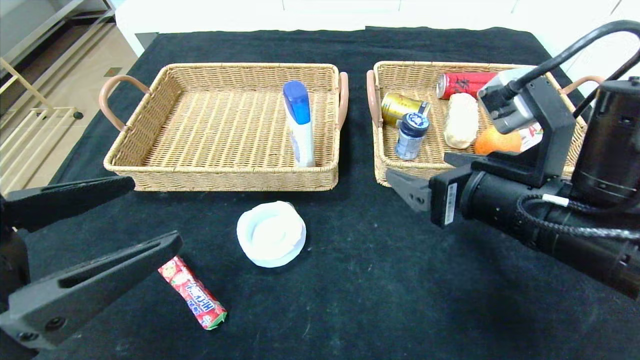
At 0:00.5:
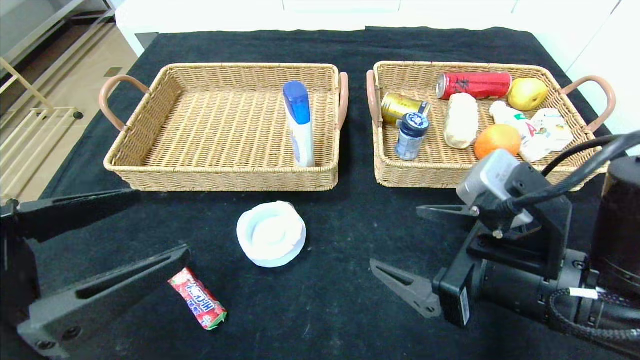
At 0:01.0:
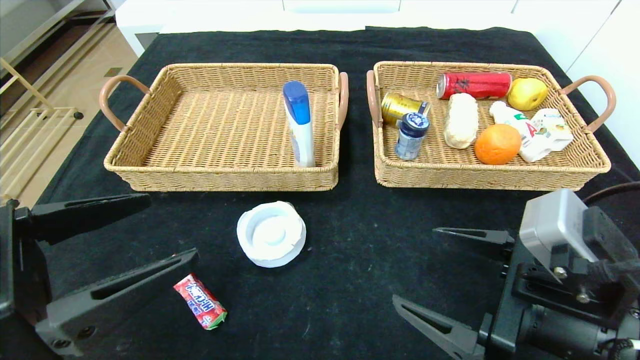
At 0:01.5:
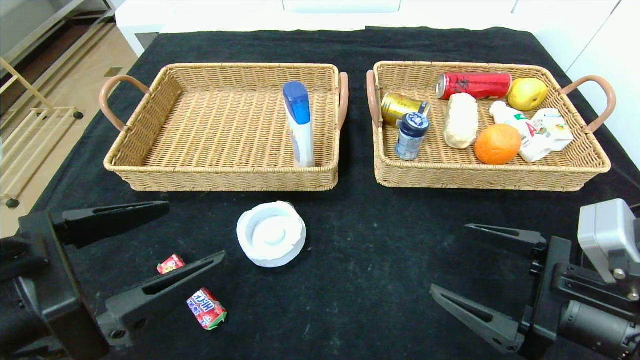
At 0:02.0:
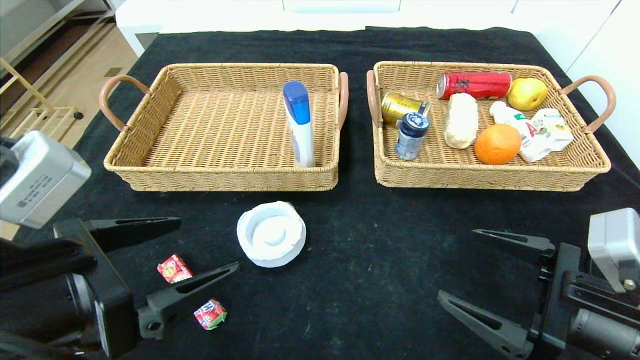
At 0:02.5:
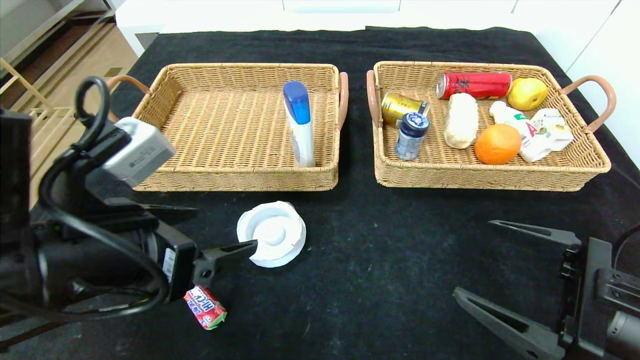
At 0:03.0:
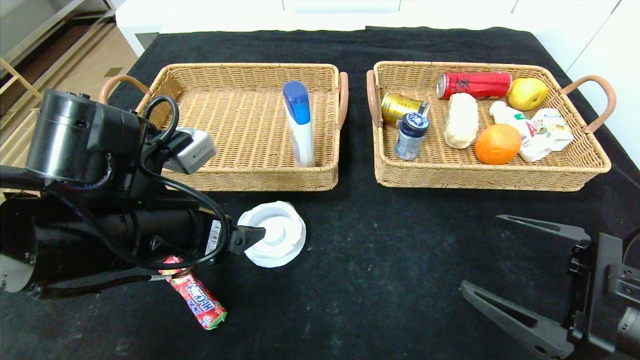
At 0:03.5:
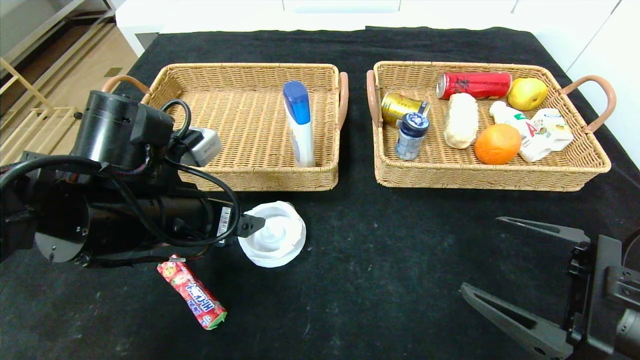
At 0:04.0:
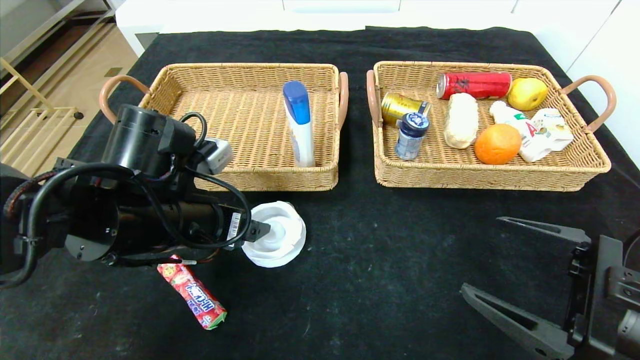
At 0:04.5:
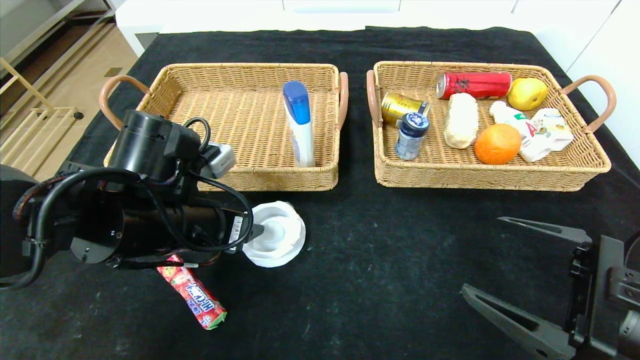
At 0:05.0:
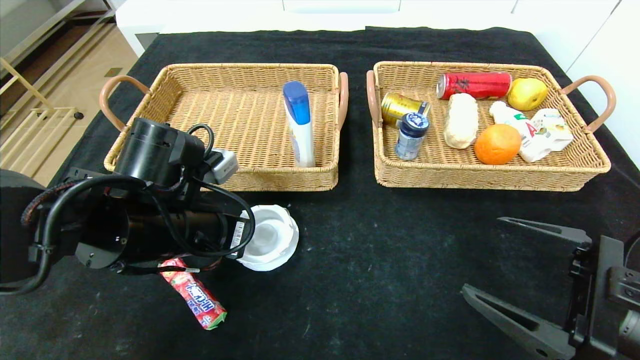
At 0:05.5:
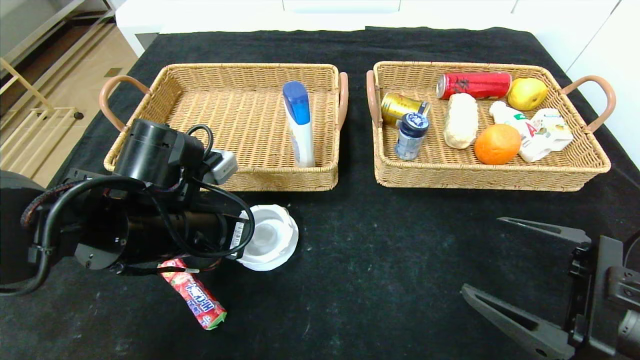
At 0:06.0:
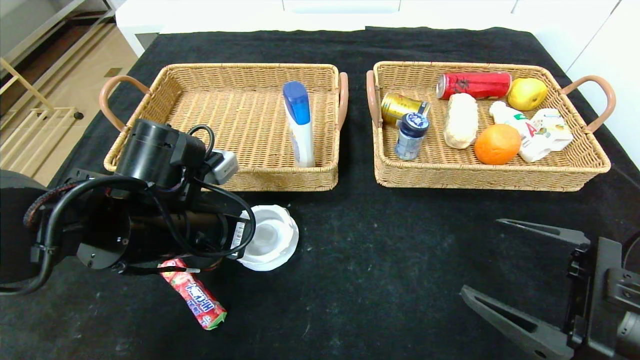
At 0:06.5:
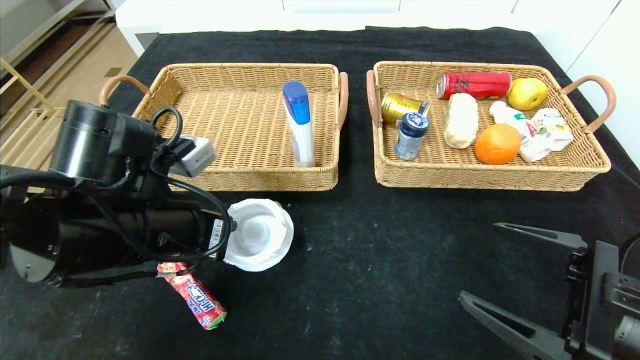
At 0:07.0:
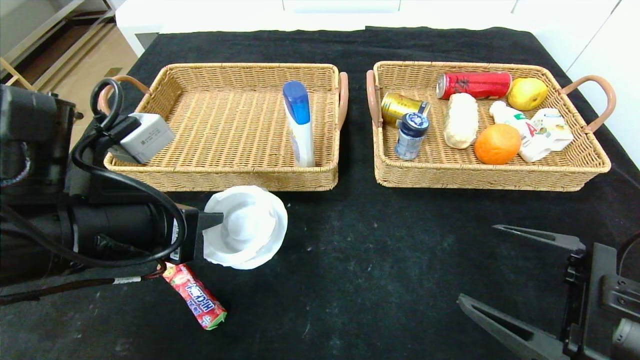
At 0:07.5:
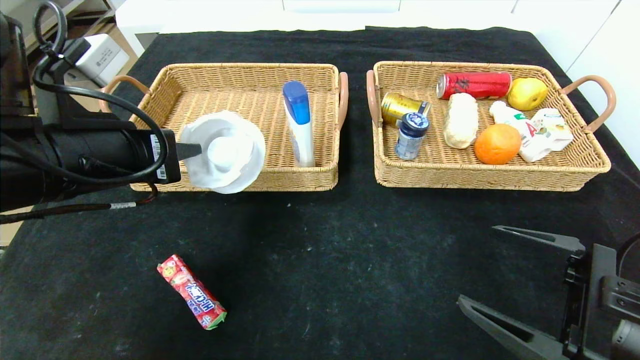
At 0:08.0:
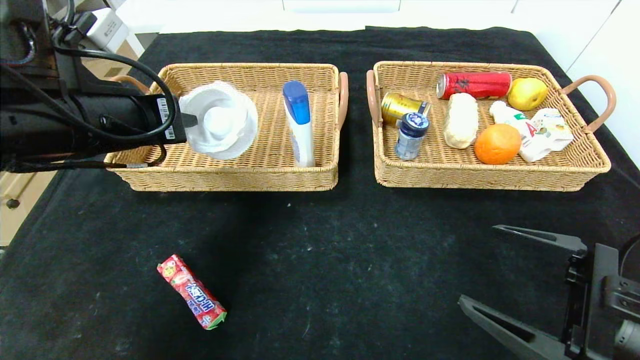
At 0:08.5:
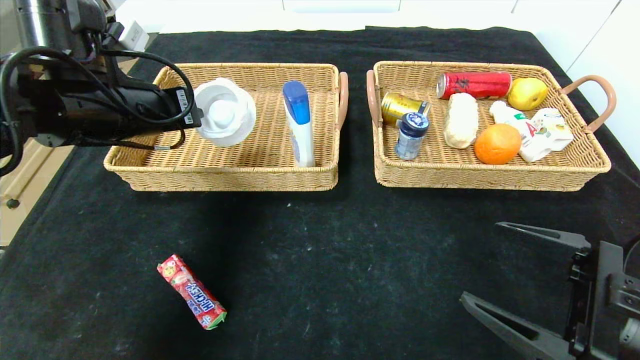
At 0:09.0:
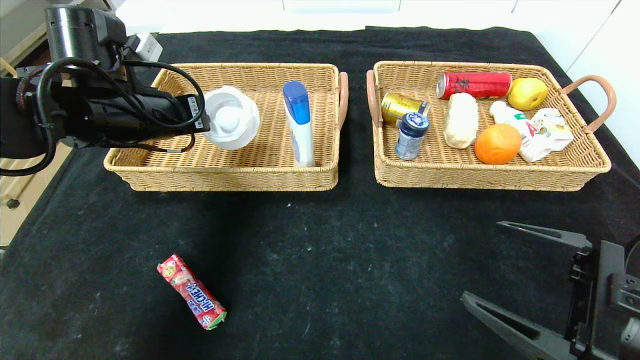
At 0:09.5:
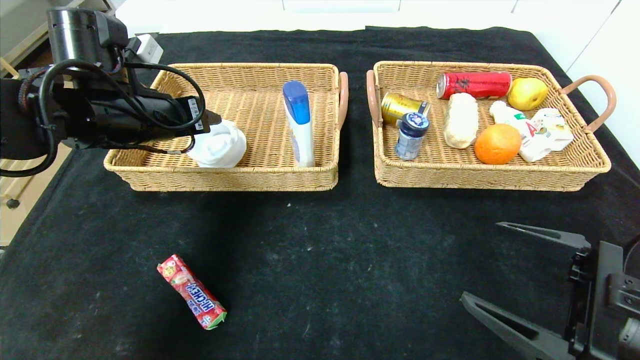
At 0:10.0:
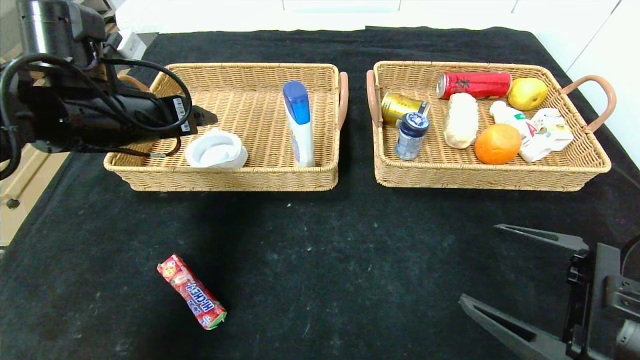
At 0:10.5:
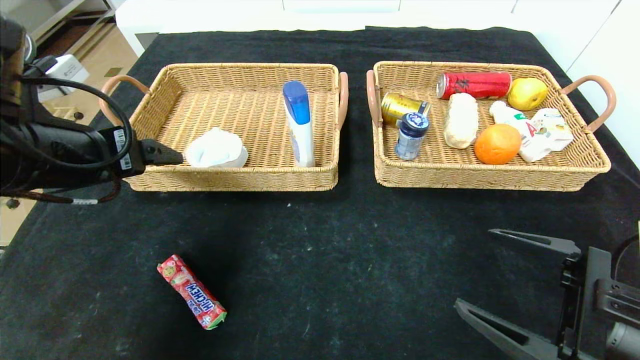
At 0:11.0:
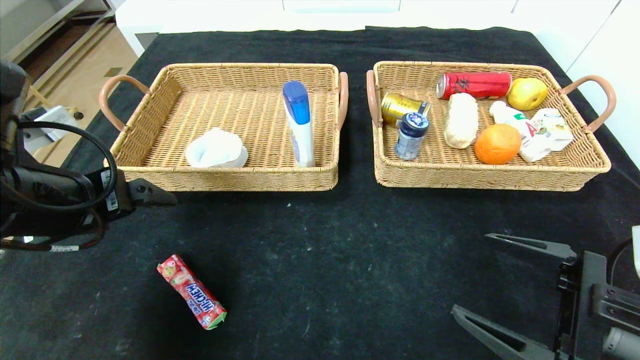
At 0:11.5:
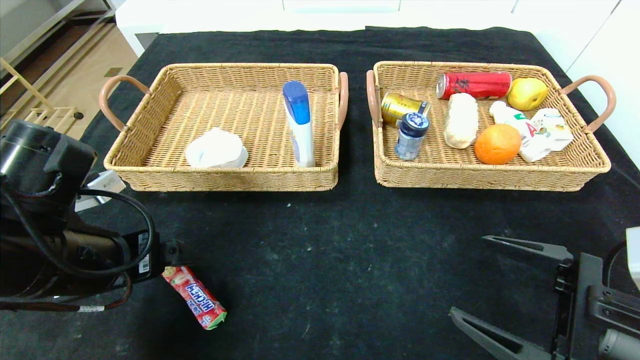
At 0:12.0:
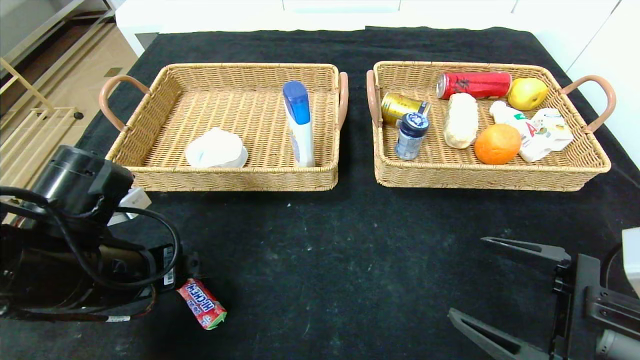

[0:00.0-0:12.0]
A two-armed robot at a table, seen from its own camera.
Step, 0:00.0 to 0:09.5: Grasp the tape and put it in the left basket.
0:00.0 to 0:02.0: The right gripper is displaced downward, to the right and backward by some 15 cm.
0:02.0 to 0:04.0: The left gripper moves forward, some 15 cm.
0:04.0 to 0:06.0: The left gripper closes up.
0:06.0 to 0:08.0: The left gripper heads upward and to the left, covering some 10 cm.
0:08.0 to 0:10.0: The left gripper travels forward by some 5 cm, and opens up.
0:10.0 to 0:12.0: The left gripper heads backward and downward, covering about 15 cm.

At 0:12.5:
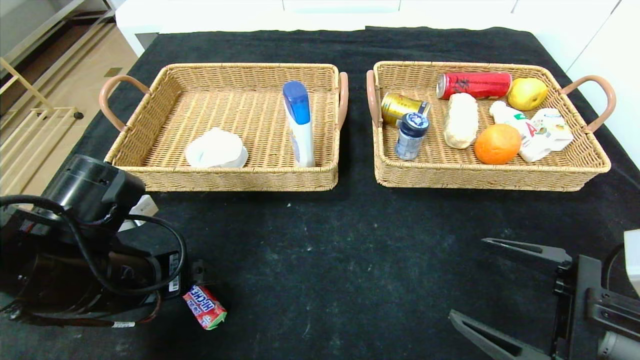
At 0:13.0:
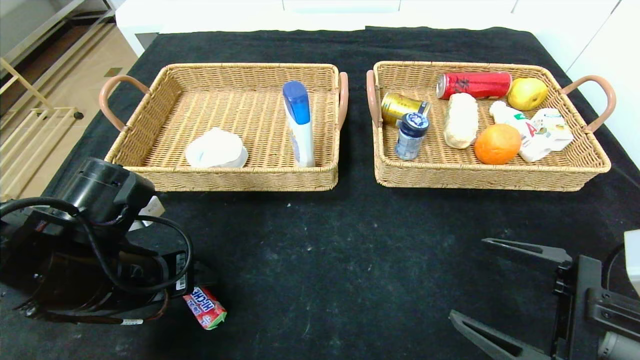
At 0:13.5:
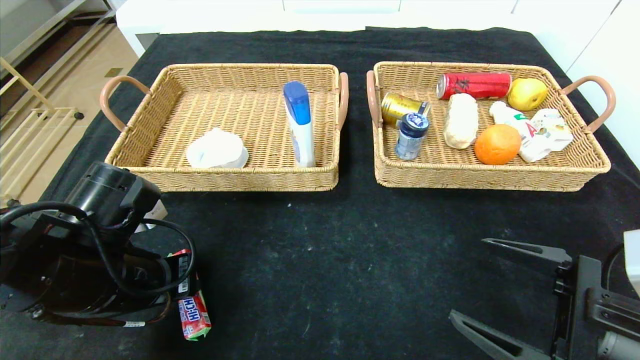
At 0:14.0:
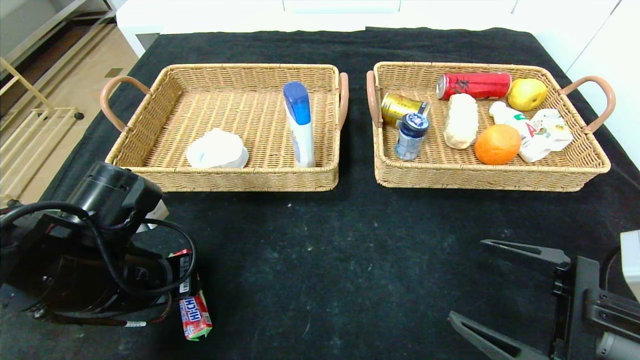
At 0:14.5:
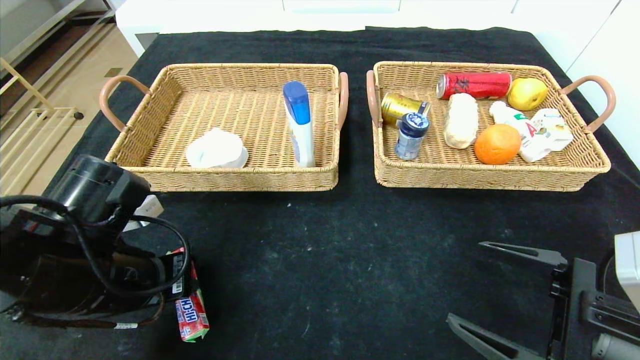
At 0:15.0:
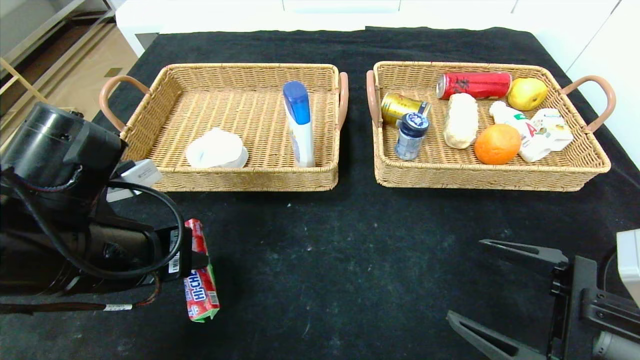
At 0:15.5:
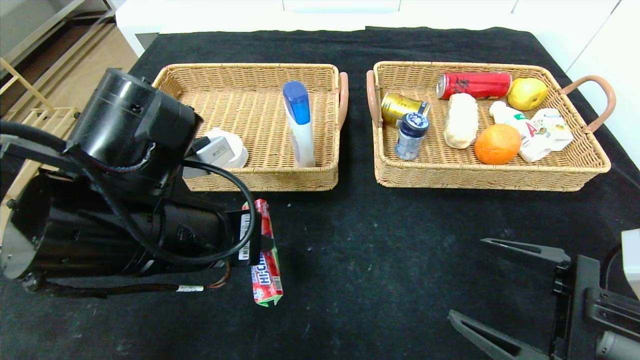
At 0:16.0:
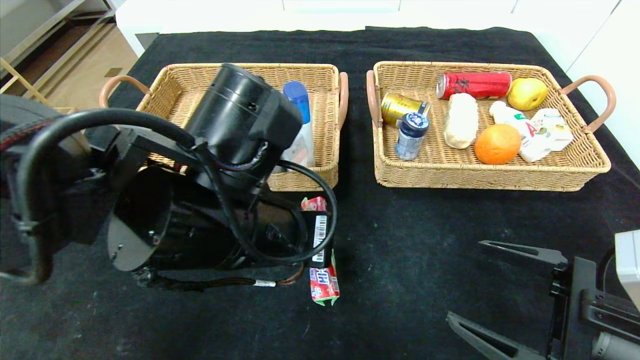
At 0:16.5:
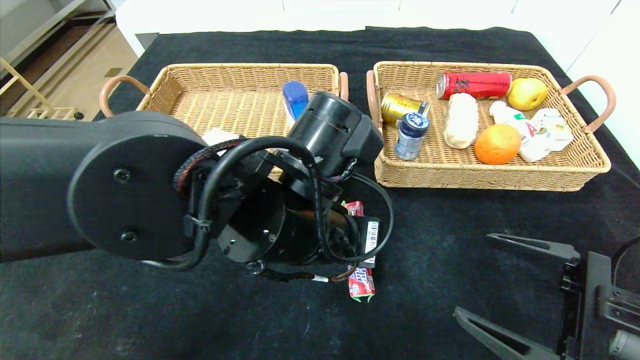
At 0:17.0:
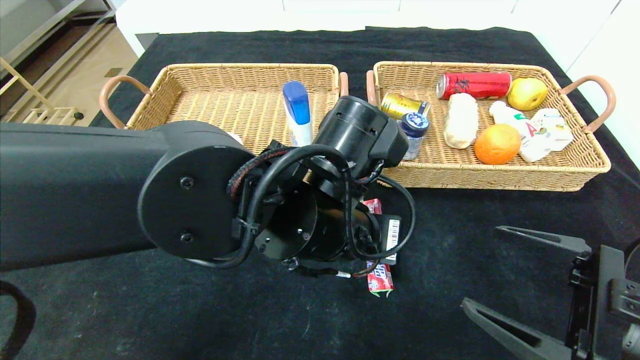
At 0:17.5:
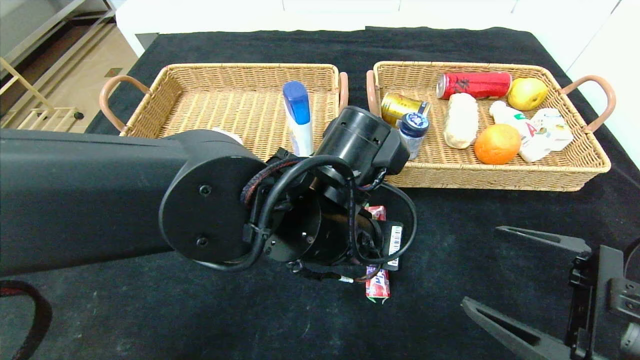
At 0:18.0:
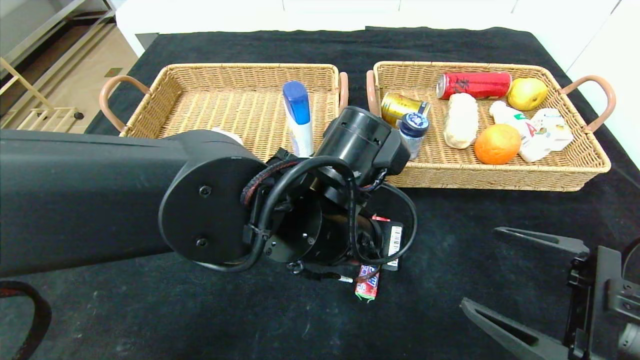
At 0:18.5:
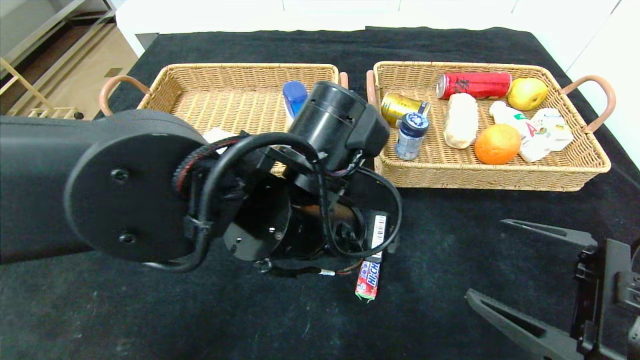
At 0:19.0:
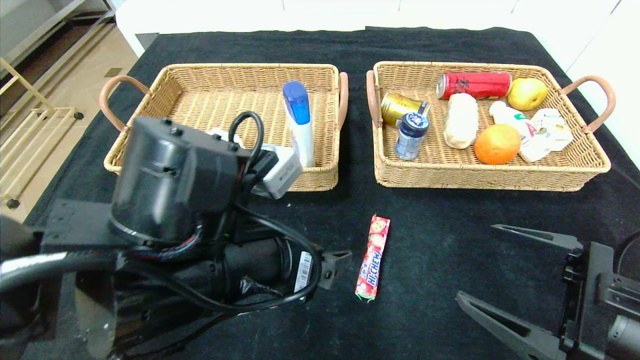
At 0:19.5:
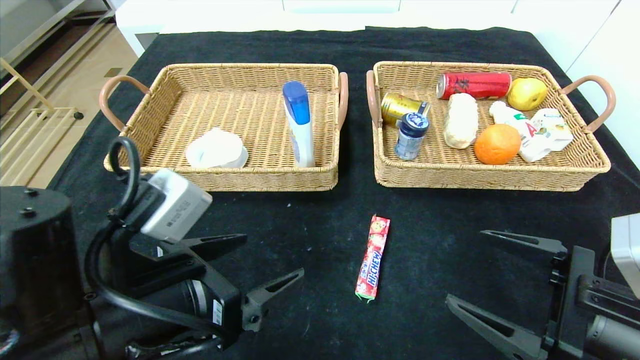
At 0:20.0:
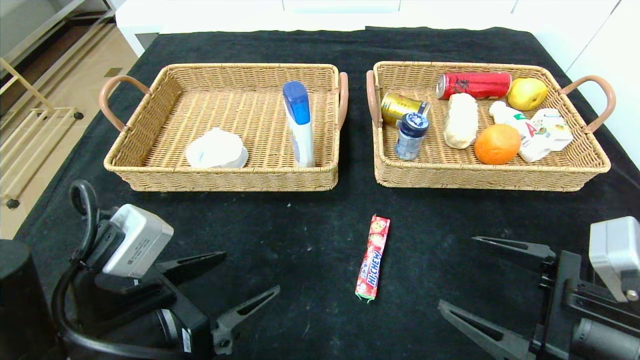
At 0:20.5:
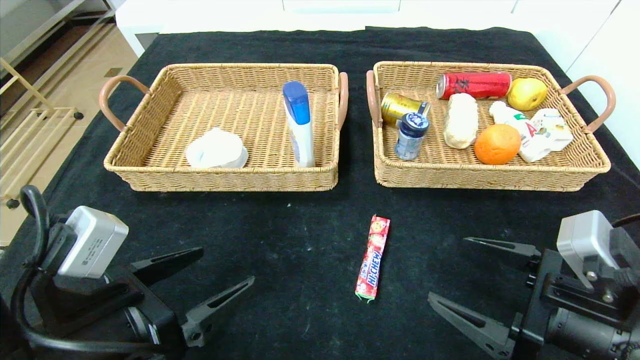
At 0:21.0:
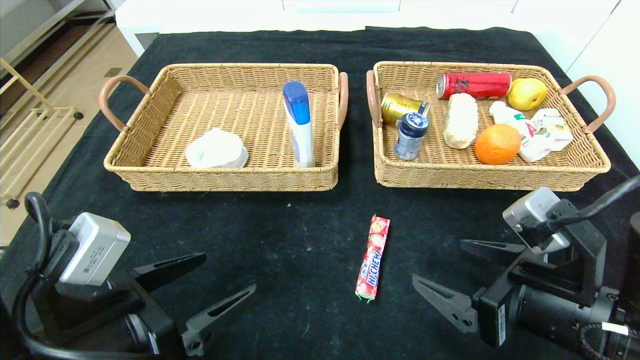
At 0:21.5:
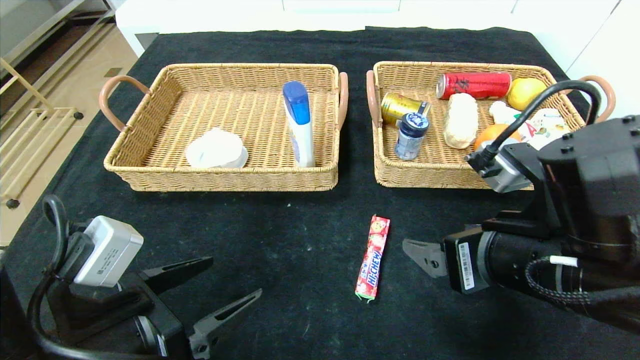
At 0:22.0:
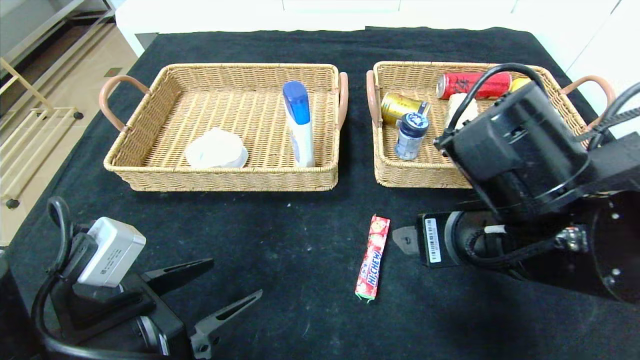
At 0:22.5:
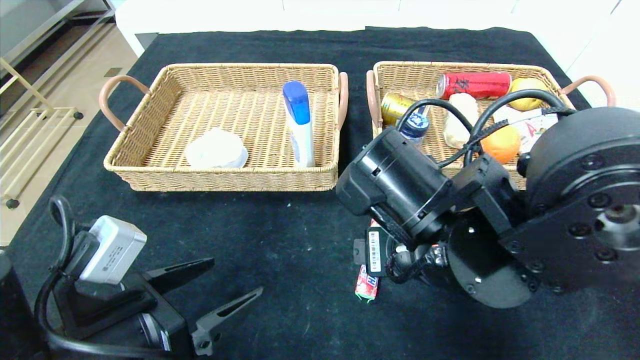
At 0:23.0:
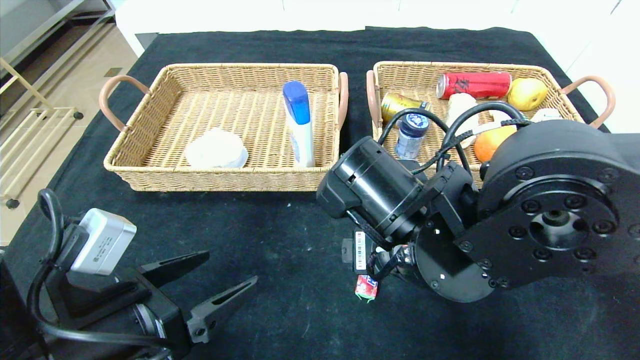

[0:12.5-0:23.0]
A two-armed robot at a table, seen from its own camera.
Step, 0:12.5 to 0:18.5: Place the fruit fudge in the center of the table.
0:12.5 to 0:14.5: The left gripper closes up.
0:14.5 to 0:16.5: The left gripper moves to the right, approximately 20 cm.
0:16.5 to 0:19.0: The left gripper goes some 5 cm to the left, and opens.
0:19.0 to 0:21.0: The left gripper shifts approximately 15 cm to the left and downward. Meanwhile the right gripper travels to the left by roughly 5 cm.
0:21.0 to 0:23.0: The right gripper moves to the left and forward, some 15 cm.
